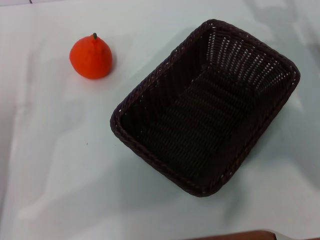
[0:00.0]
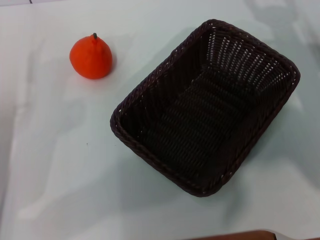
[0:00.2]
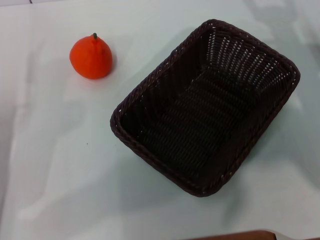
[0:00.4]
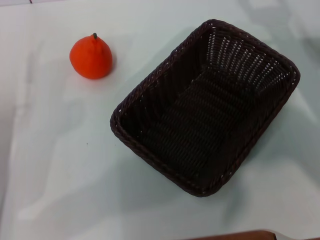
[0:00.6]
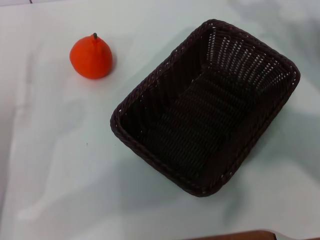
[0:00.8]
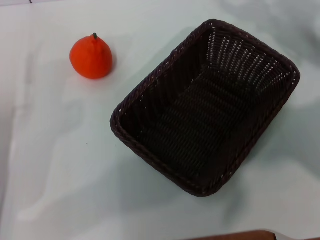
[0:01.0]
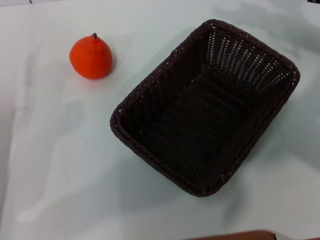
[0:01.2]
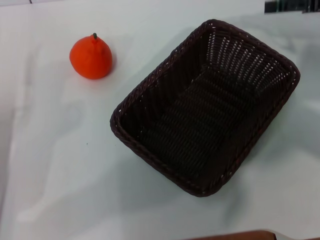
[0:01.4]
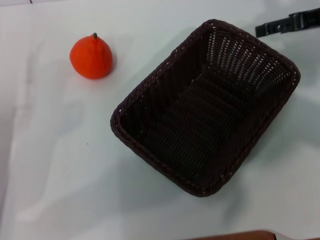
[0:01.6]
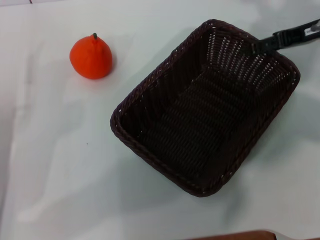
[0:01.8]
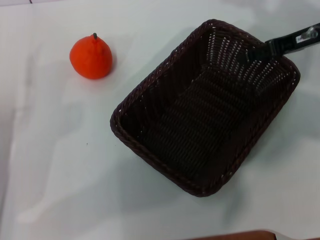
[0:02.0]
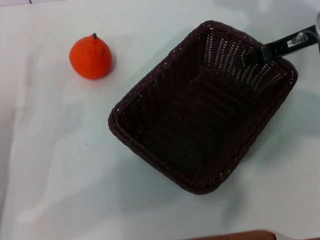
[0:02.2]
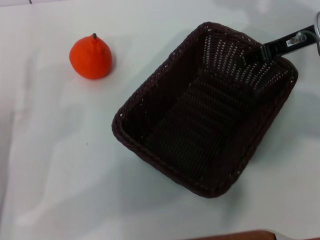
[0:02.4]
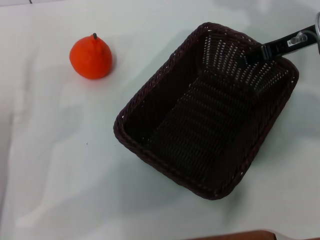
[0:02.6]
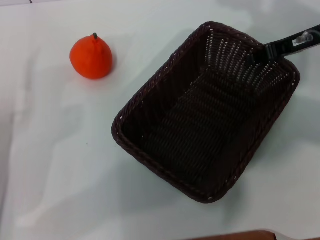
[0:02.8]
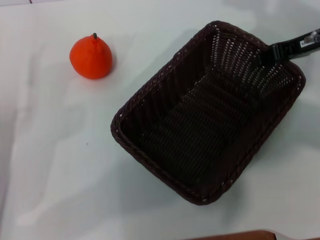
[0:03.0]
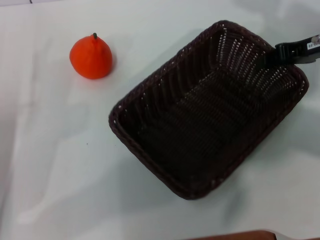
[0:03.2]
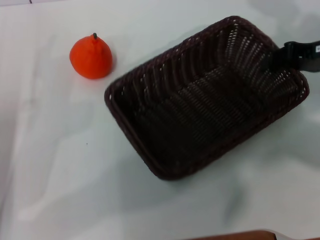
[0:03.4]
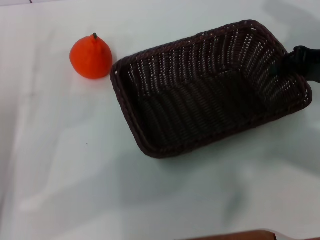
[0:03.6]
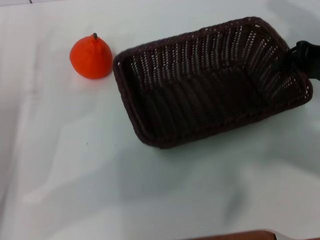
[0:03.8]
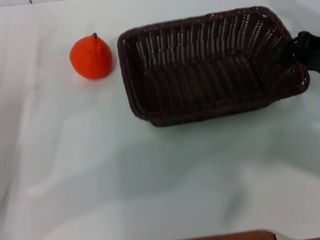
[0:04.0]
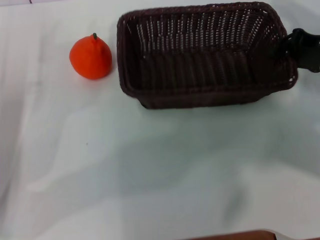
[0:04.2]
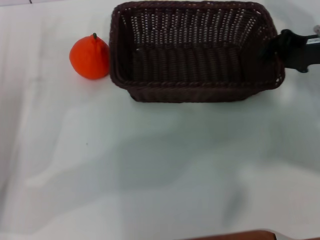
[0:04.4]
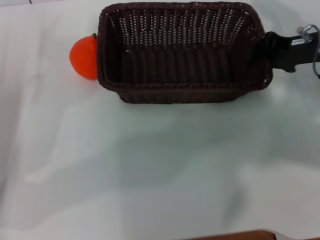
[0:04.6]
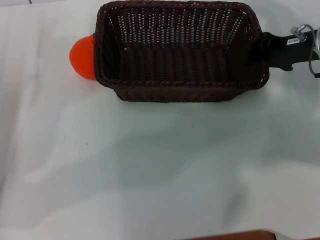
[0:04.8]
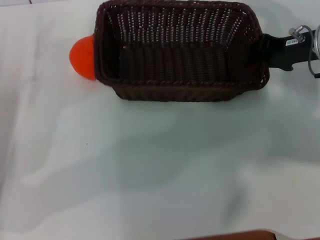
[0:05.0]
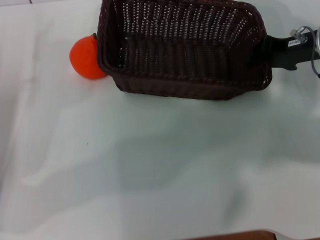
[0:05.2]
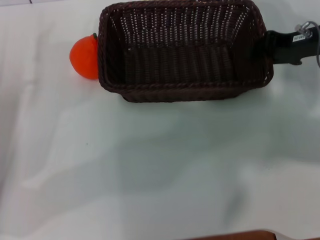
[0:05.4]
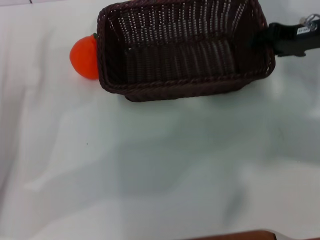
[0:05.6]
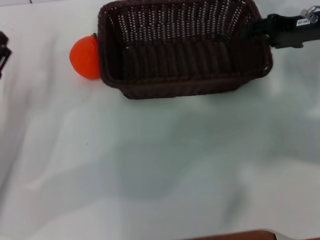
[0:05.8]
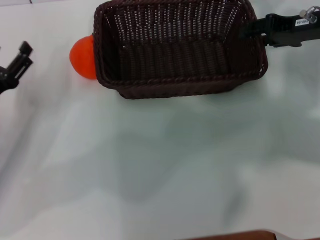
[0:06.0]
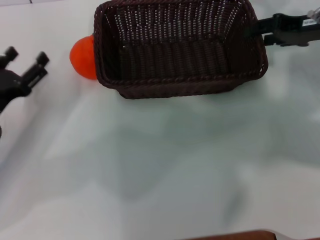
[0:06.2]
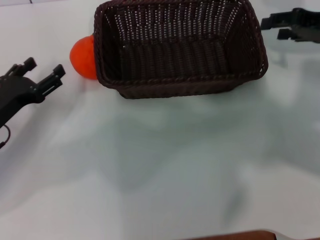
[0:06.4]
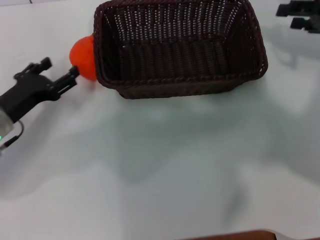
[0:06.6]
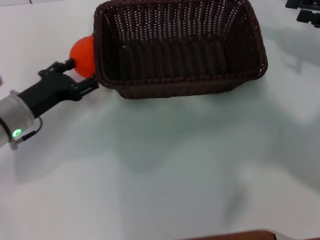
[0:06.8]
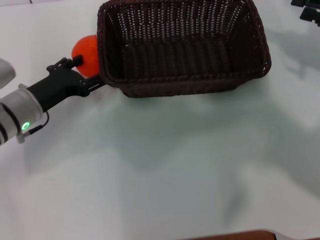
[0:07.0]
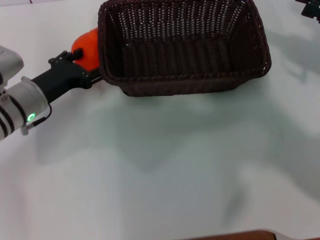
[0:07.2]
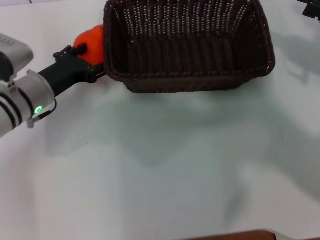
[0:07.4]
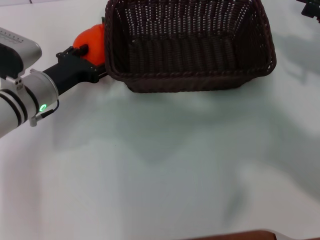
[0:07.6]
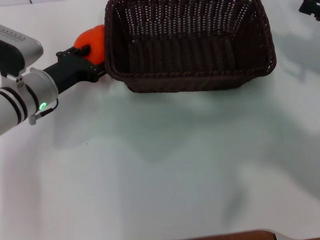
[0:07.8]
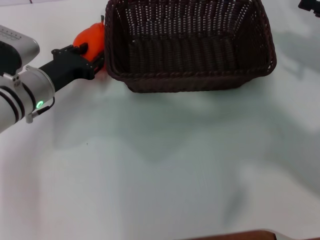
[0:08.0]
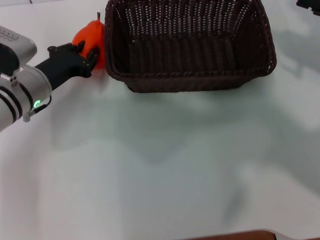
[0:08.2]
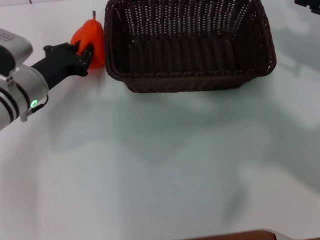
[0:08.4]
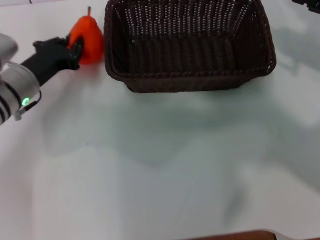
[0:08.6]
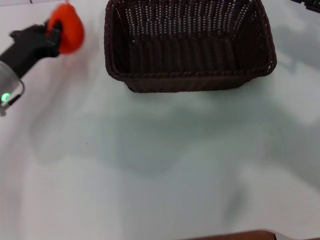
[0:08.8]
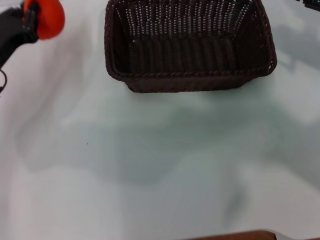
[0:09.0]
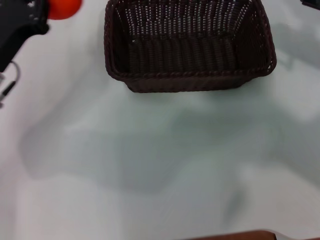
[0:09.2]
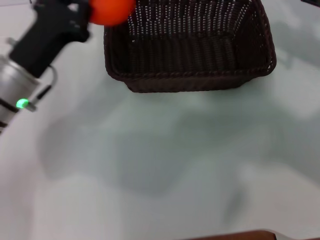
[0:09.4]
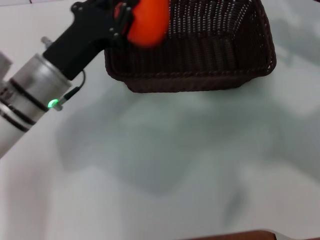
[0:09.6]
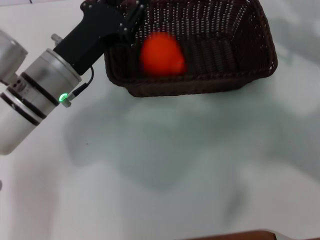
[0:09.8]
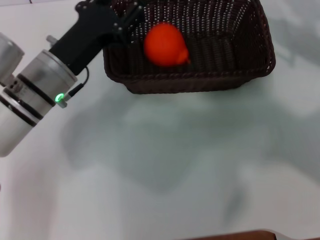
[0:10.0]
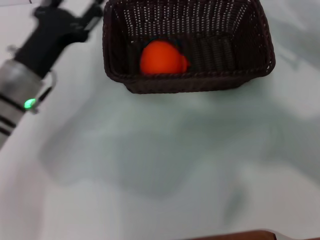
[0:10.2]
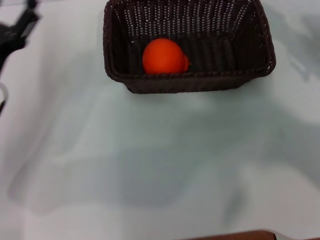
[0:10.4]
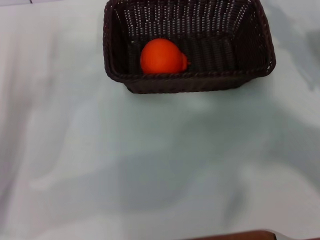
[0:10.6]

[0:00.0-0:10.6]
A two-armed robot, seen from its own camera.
Task of the whole recording: the right gripper pick up the black basket and place it horizontally in the middle of the table, the left gripper pick up the orange and place it into the black basket.
Step, 0:00.0 to 0:03.0: Pick up the dark basket with the right gripper.
Step, 0:03.2 to 0:06.2: Place the dark basket in the center of view with the right gripper.
Step, 0:06.4 to 0:08.8: Pick up the orange with the left gripper.
Step, 0:09.0 to 0:09.8: Place the orange into the dark basket with the left gripper.
0:00.0 to 0:01.6: The right gripper travels upward and forward by about 15 cm.
0:01.6 to 0:03.0: The right gripper closes its fingers.
0:03.0 to 0:04.6: The left gripper goes approximately 5 cm forward.
0:04.6 to 0:06.0: The right gripper opens up.
0:06.0 to 0:07.6: The left gripper moves to the right and forward, approximately 10 cm, while the right gripper is displaced backward and to the right by some 10 cm.
0:07.6 to 0:09.0: The left gripper goes approximately 5 cm to the left, and closes up.
0:09.0 to 0:10.6: The left gripper travels backward by about 10 cm, reaches roughly 10 cm to the right, then returns, and opens its fingers. Meanwhile the right gripper moves downward, about 5 cm.
